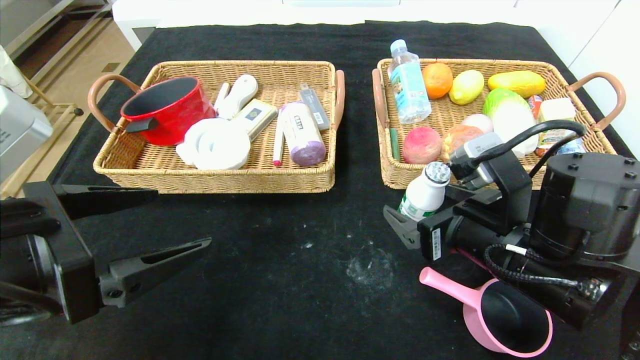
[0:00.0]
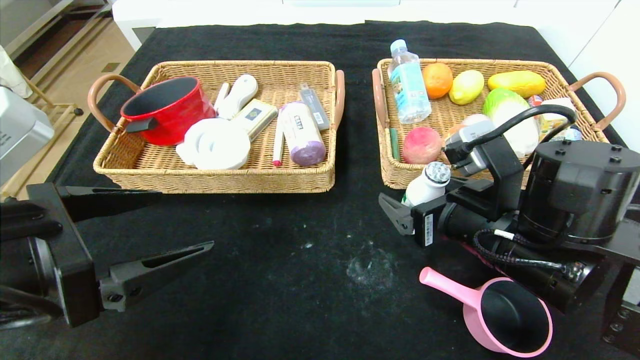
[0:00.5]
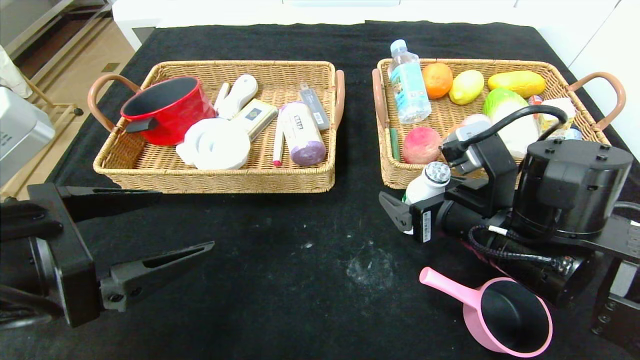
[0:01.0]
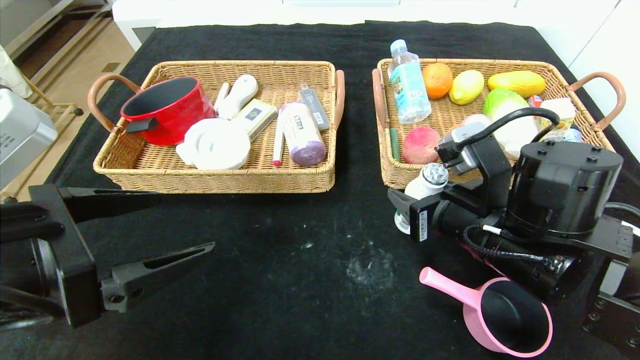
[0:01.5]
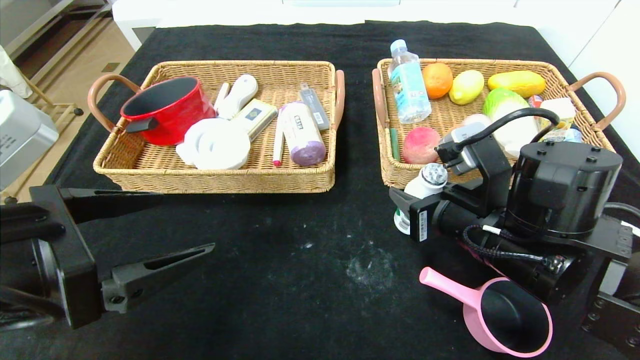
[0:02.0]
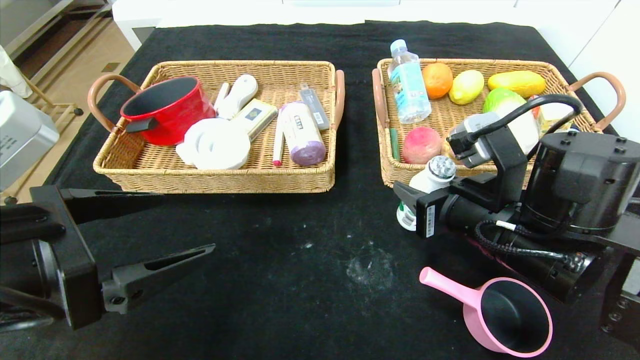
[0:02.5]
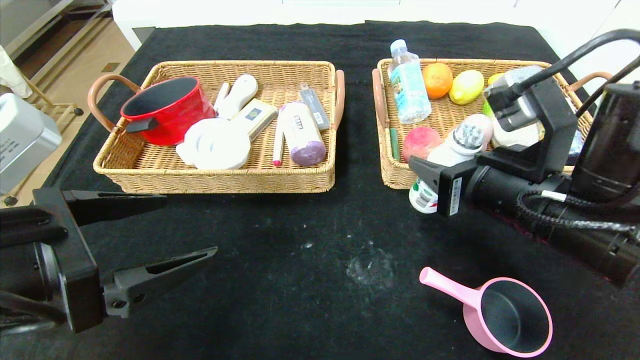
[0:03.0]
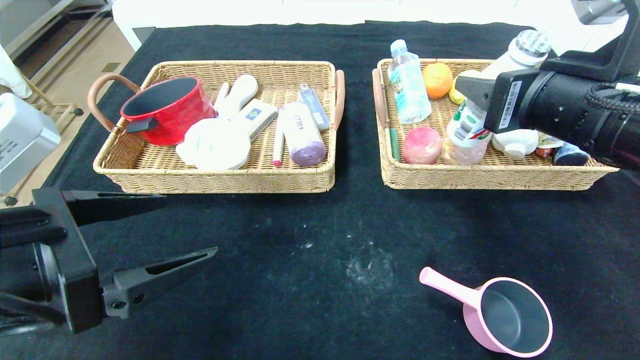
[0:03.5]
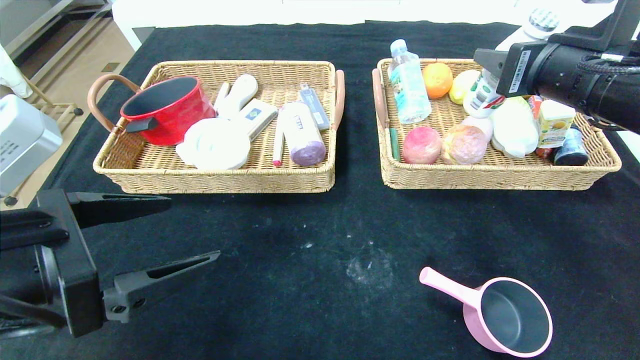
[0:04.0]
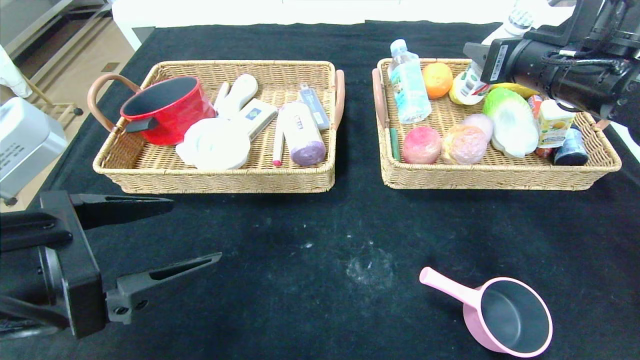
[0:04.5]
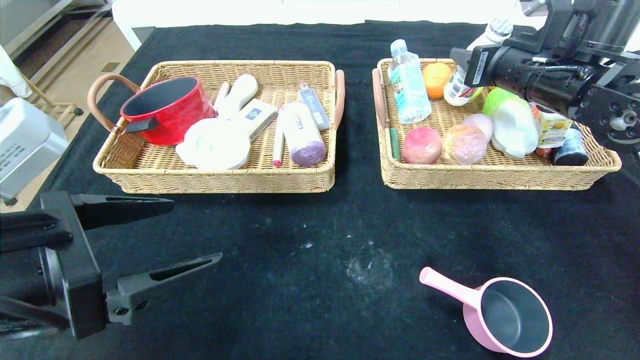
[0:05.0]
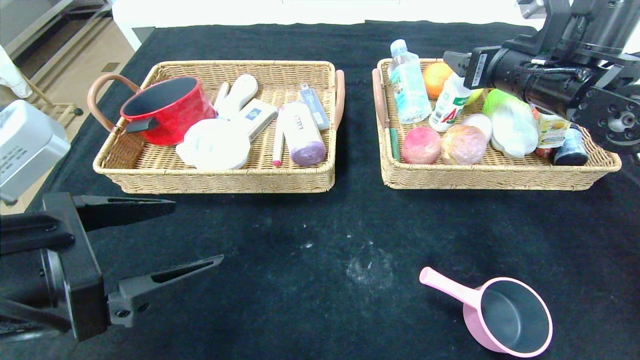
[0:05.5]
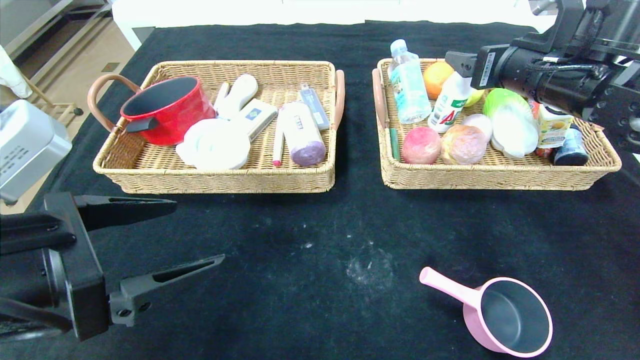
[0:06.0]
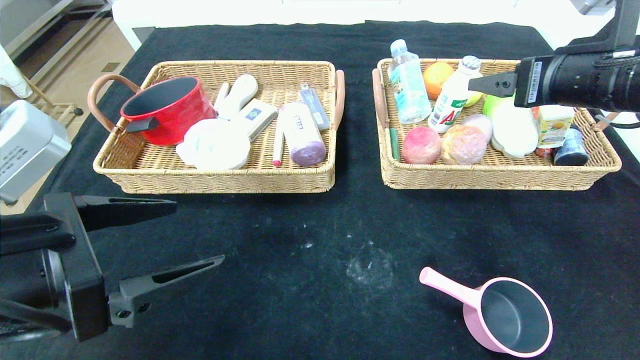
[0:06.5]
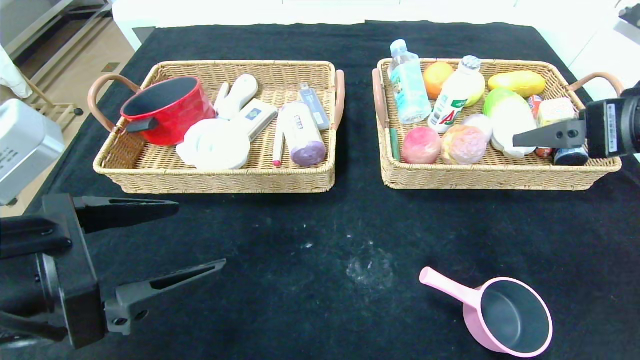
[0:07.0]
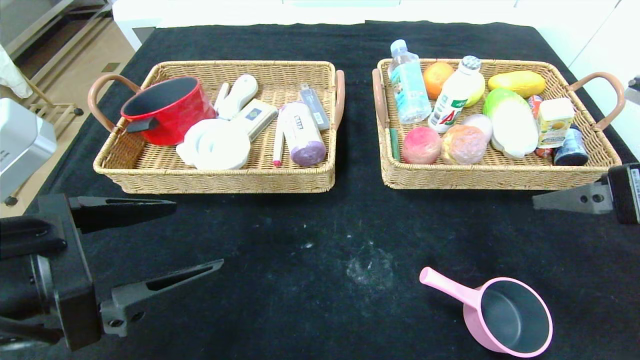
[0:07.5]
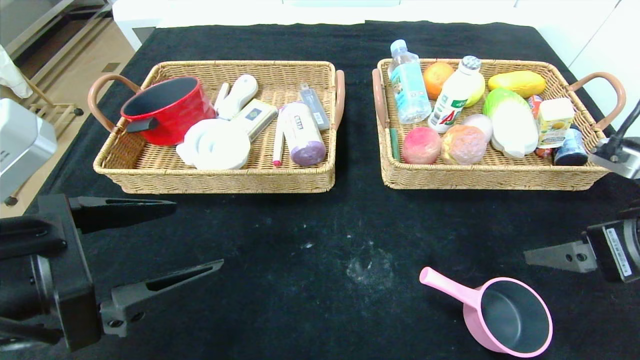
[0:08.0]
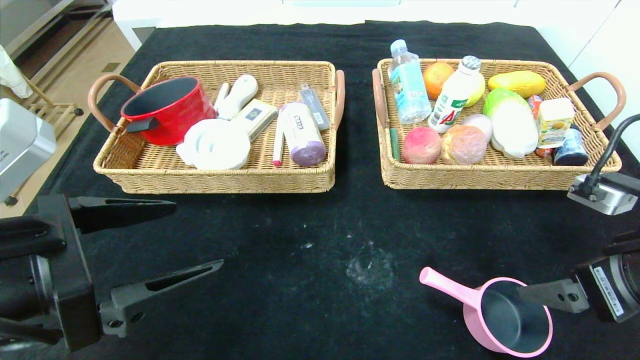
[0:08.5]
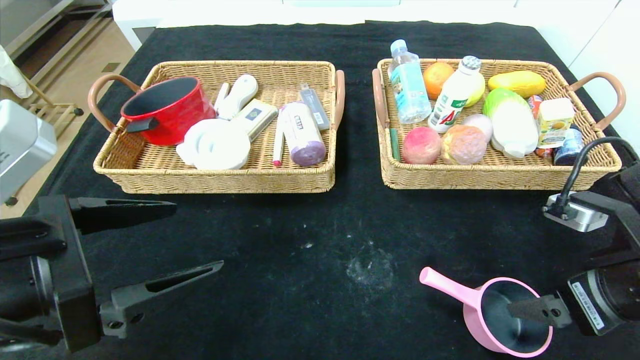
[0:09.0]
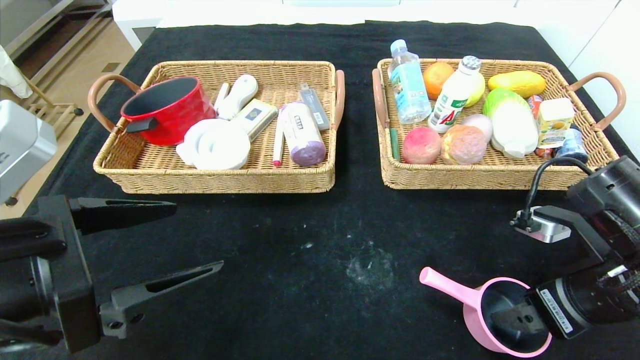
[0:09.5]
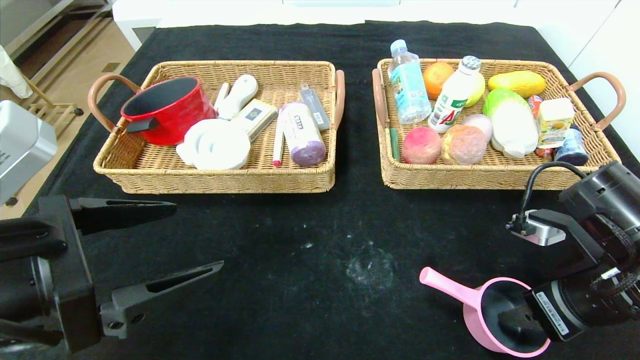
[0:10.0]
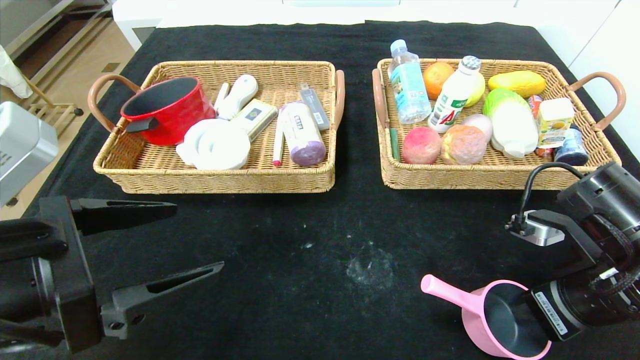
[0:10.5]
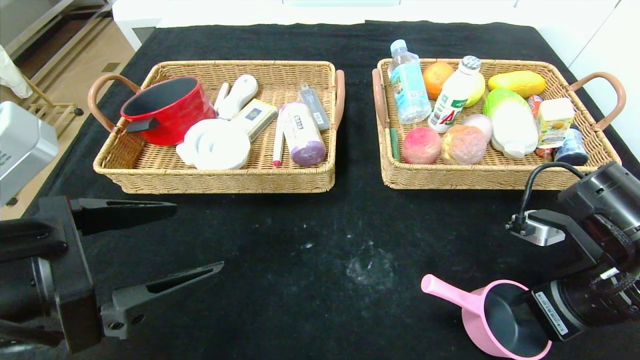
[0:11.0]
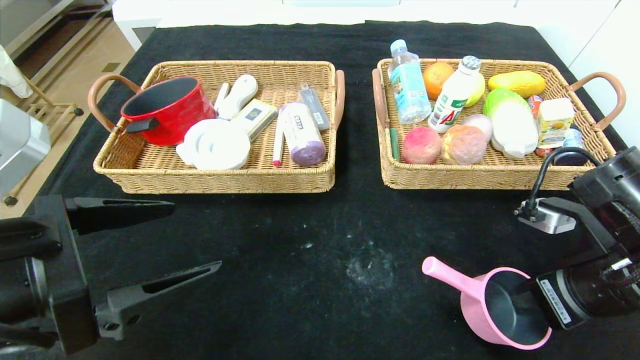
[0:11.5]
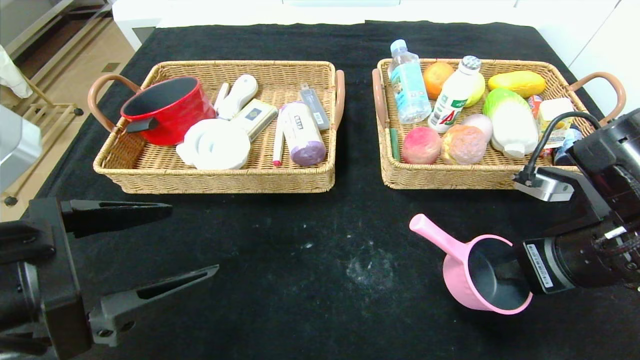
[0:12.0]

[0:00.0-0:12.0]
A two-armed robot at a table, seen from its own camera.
Step, 0:00.0 to 0:07.5: Pick up the ad milk and put it in the right basket.
0:00.0 to 0:02.0: The right gripper closes.
0:02.0 to 0:04.0: The right gripper is displaced upward and to the right by about 15 cm.
0:04.0 to 0:06.0: The right gripper is displaced forward by roughly 5 cm, and opens.
0:06.0 to 0:08.0: The right gripper is displaced backward and downward by some 20 cm.
0:08.0 to 0:10.0: The right gripper heads downward, covering some 5 cm, and closes.
0:10.0 to 0:12.0: The right gripper closes its fingers.

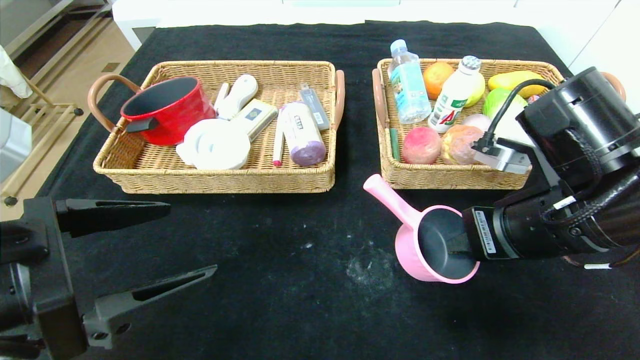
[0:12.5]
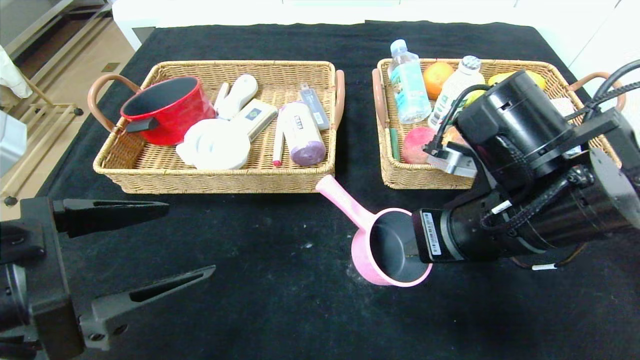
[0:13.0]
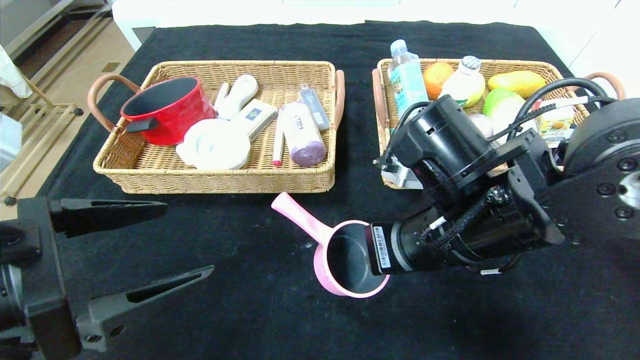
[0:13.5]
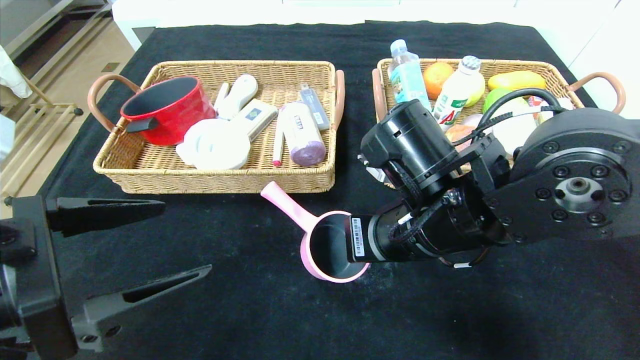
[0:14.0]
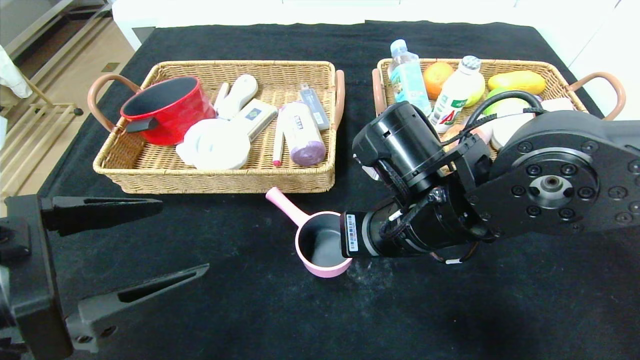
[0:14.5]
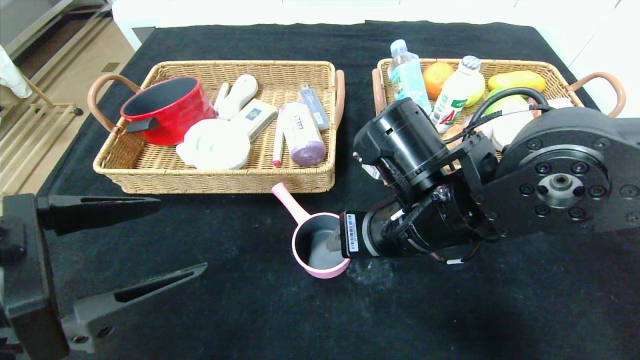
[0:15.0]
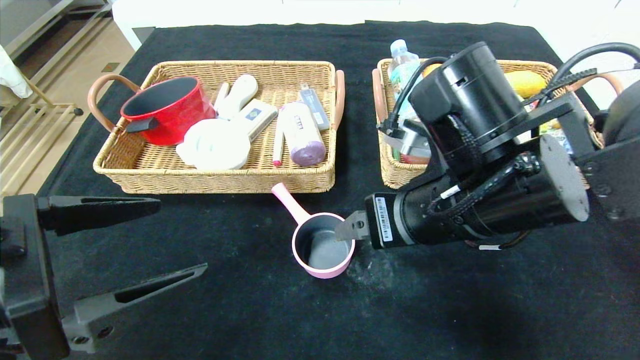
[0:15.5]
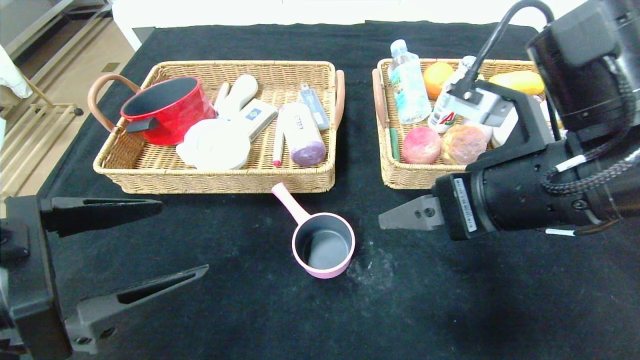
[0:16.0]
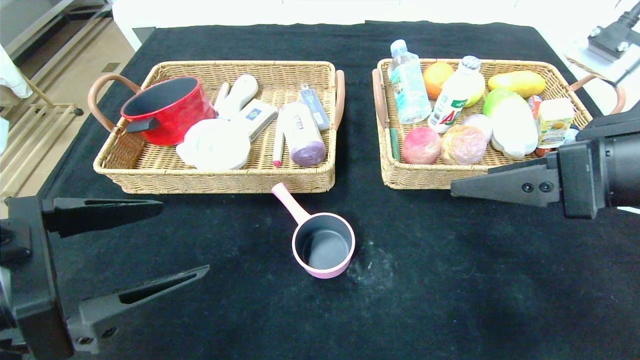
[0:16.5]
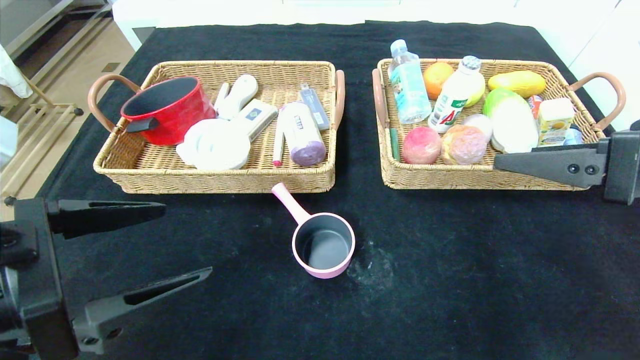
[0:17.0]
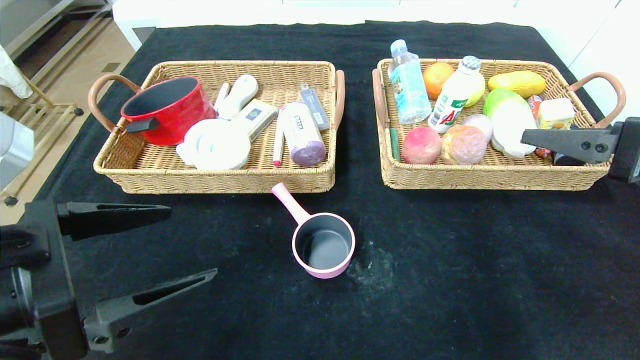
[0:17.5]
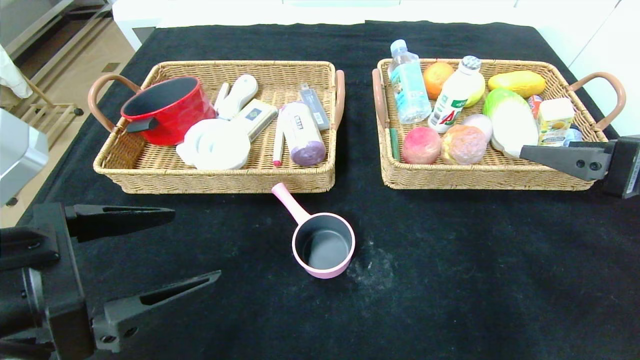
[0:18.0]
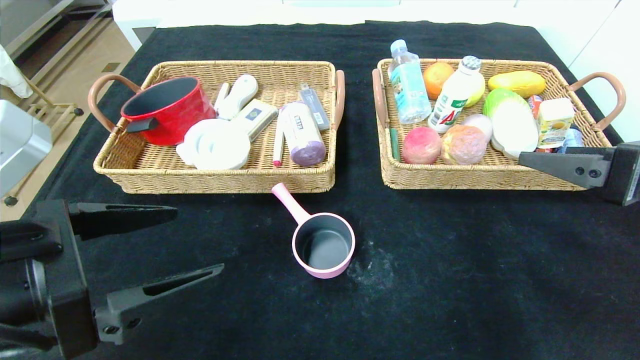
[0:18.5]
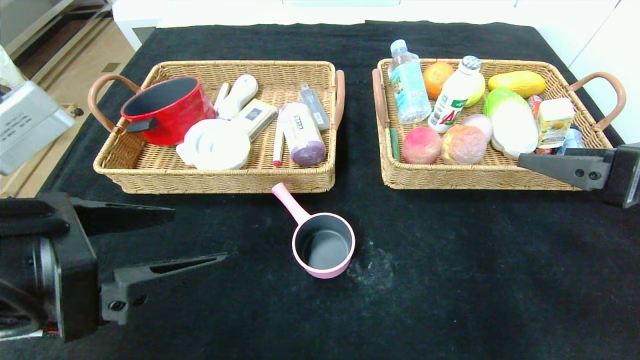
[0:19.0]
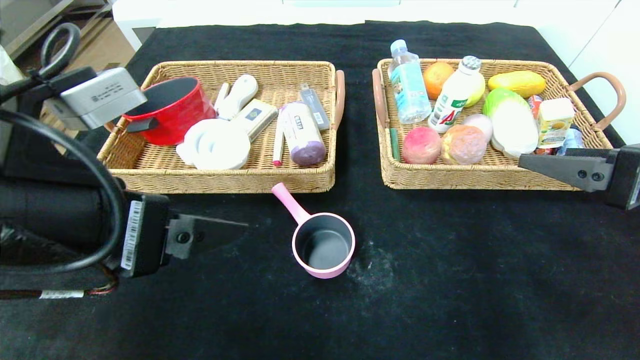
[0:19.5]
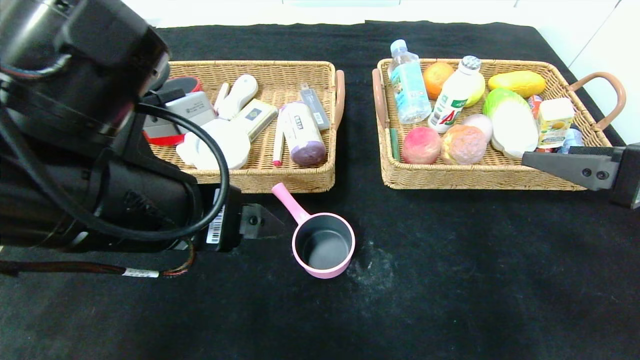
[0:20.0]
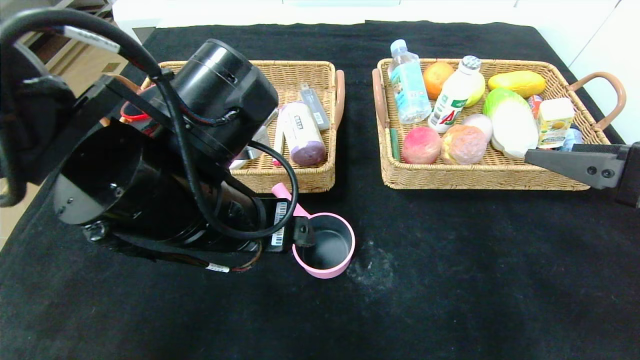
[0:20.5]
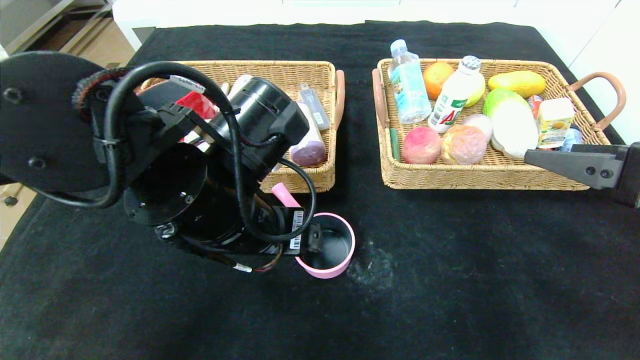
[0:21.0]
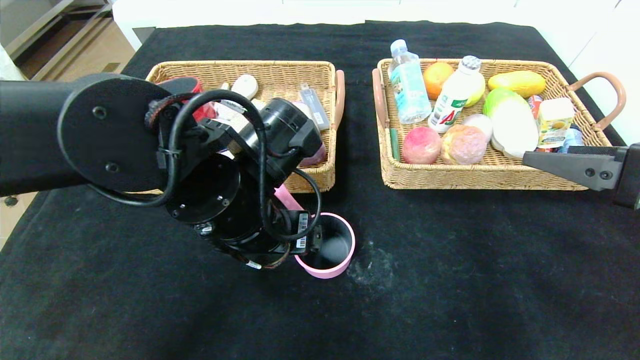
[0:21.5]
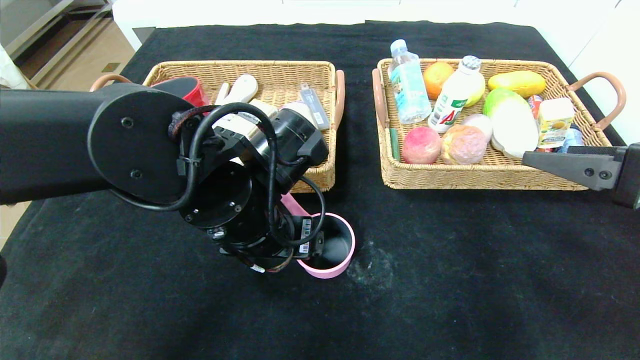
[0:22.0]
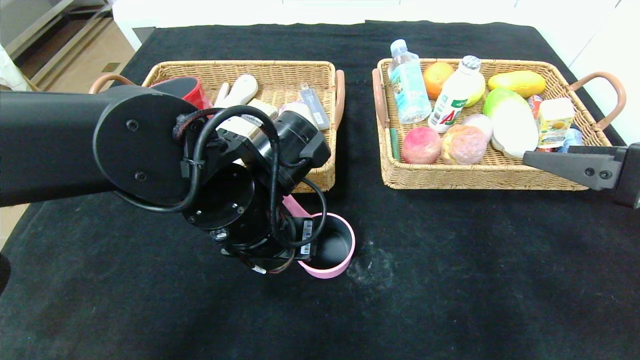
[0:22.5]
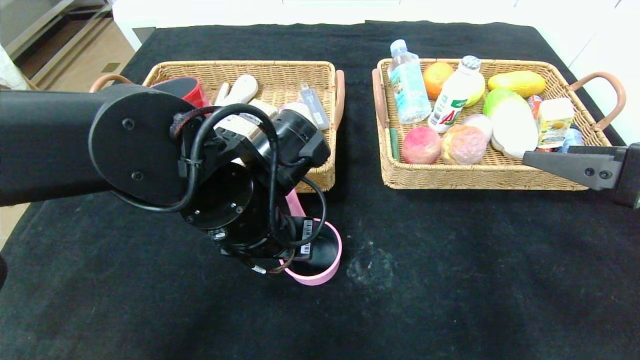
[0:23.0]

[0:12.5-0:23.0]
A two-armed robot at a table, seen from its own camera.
Step, 0:12.5 to 0:16.0: Place the pink pot in the center of the table.
0:12.5 to 0:14.5: The right gripper travels to the left by approximately 10 cm.
0:14.5 to 0:16.5: The right gripper travels to the right and upward by roughly 20 cm, and opens up.
0:16.5 to 0:19.0: The right gripper shifts some 5 cm to the right.
0:19.0 to 0:21.0: The left gripper goes some 15 cm to the right and forward.
0:21.0 to 0:23.0: The left gripper closes.
